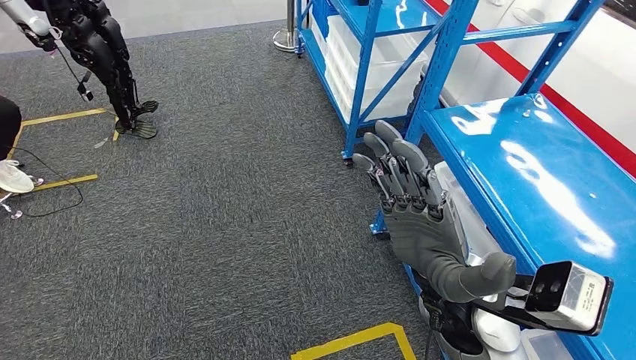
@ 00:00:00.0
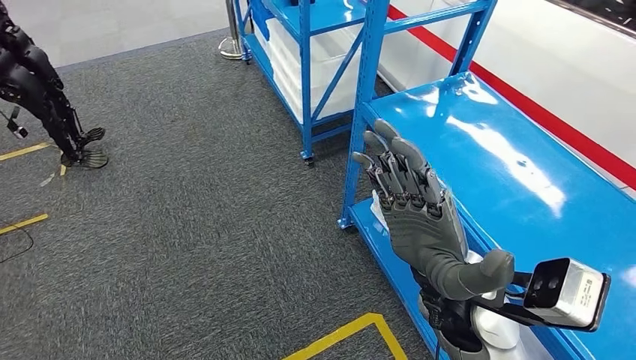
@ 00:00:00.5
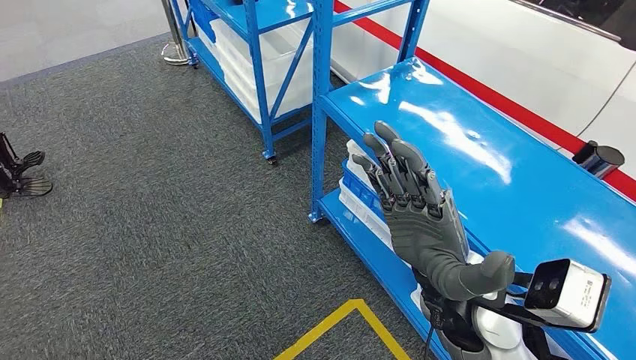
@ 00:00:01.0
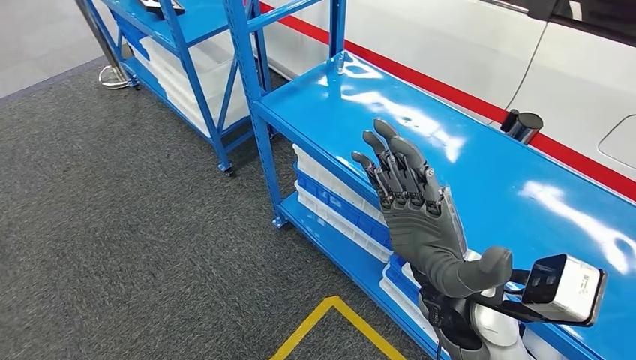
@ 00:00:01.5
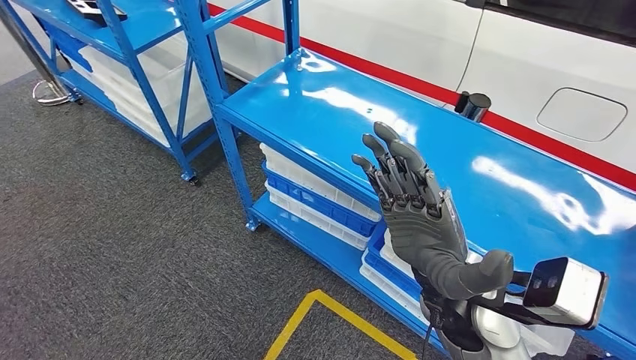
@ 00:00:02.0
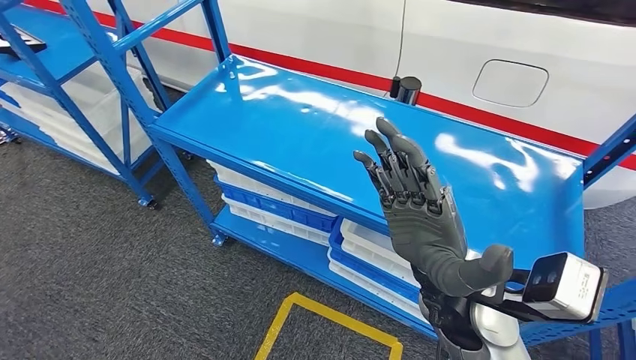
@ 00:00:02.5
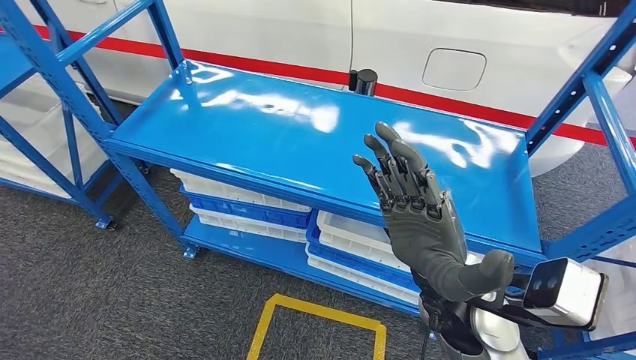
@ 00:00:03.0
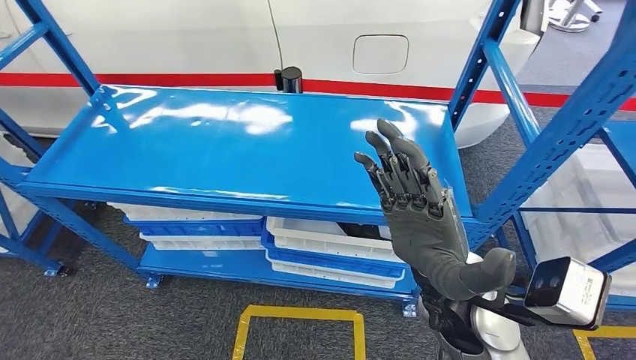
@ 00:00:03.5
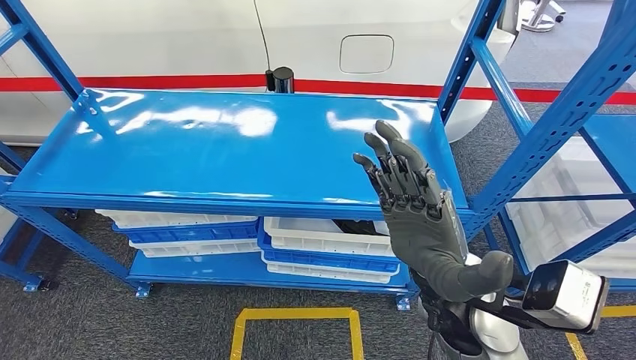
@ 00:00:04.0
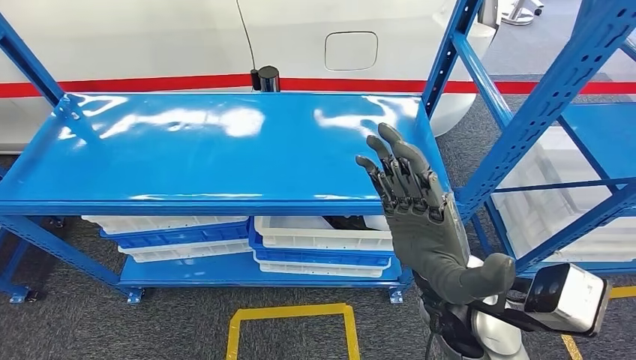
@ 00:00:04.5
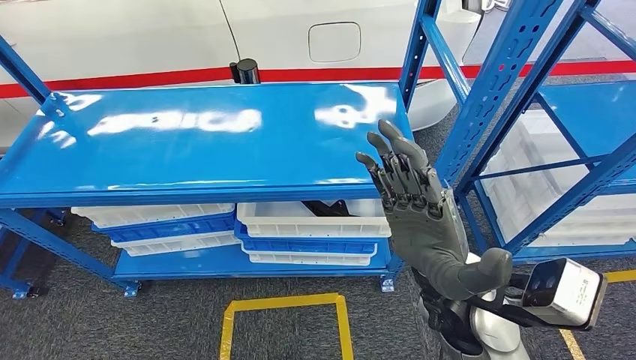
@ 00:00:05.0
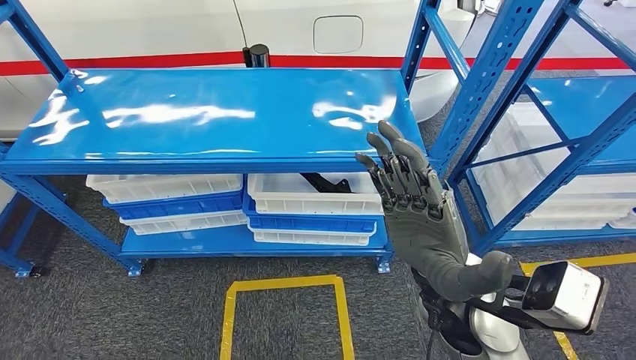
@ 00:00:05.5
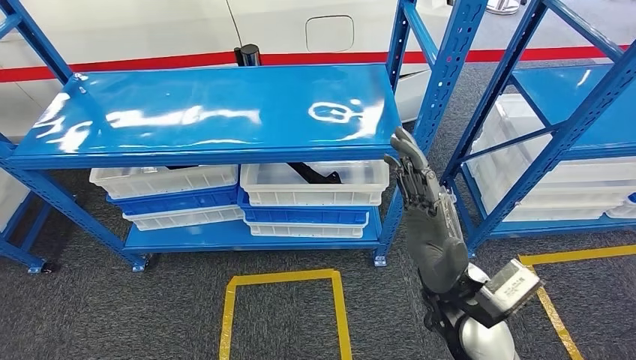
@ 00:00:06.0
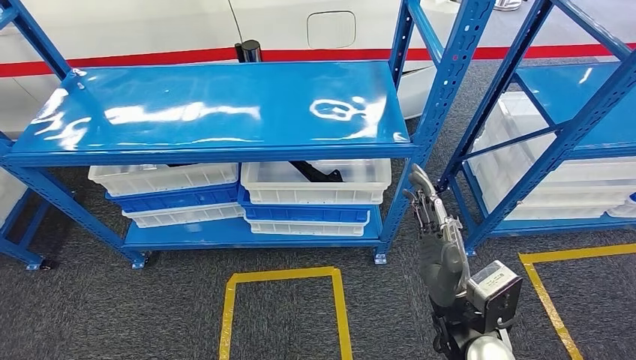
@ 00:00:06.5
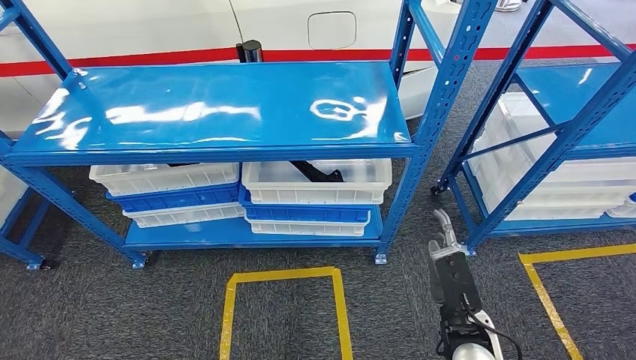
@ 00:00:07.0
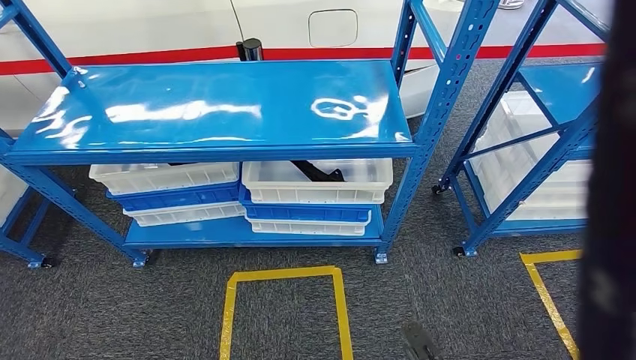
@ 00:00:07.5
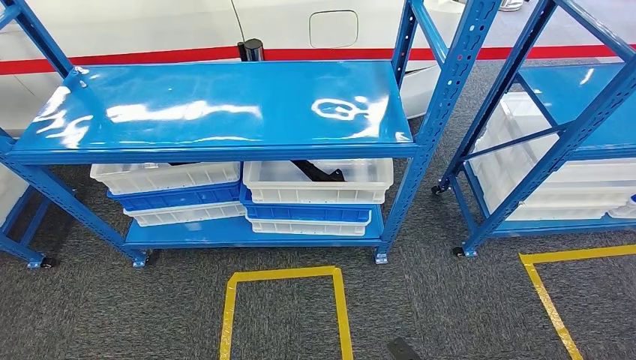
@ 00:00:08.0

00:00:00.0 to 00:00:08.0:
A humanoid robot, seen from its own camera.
Step, 00:00:00.0 to 00:00:08.0: Move to the initial position of the shelf.
